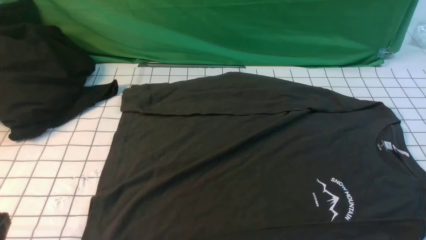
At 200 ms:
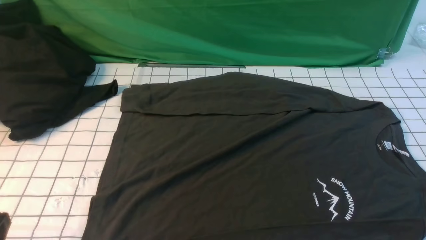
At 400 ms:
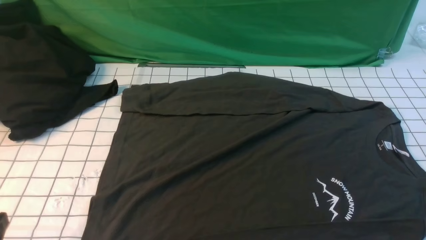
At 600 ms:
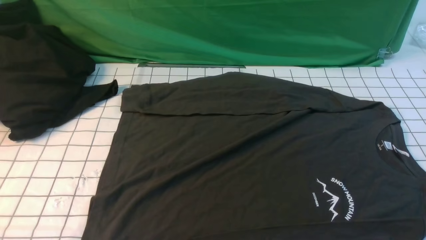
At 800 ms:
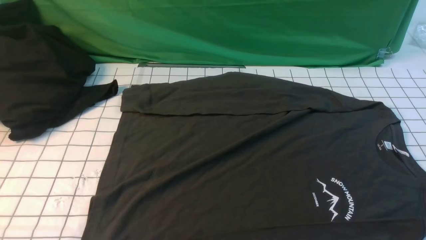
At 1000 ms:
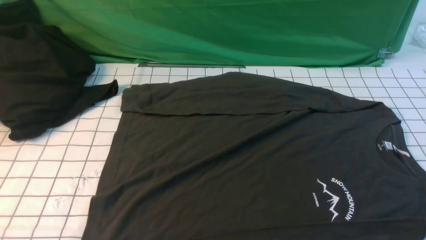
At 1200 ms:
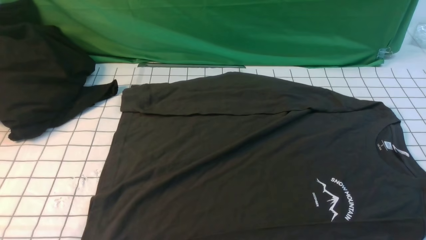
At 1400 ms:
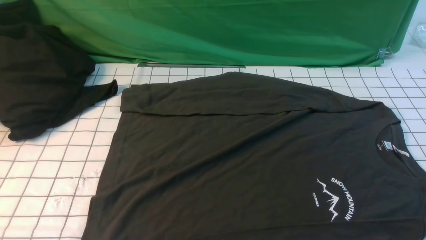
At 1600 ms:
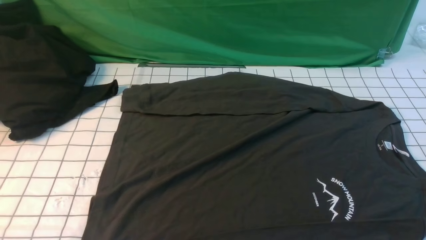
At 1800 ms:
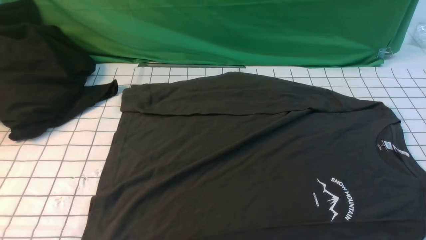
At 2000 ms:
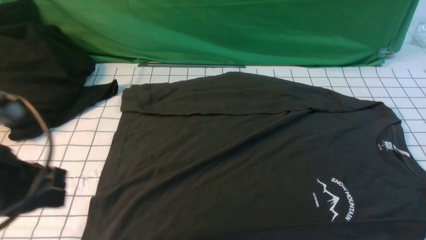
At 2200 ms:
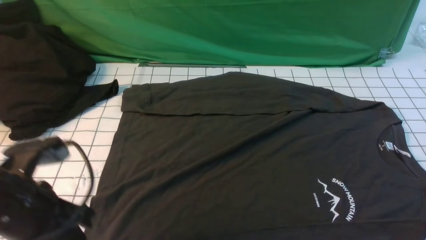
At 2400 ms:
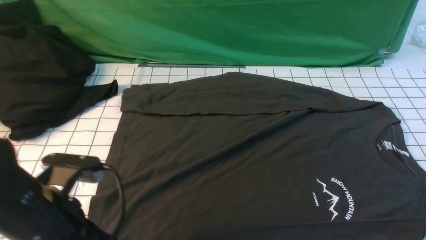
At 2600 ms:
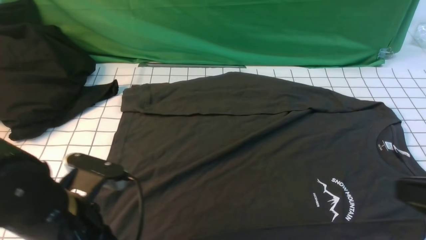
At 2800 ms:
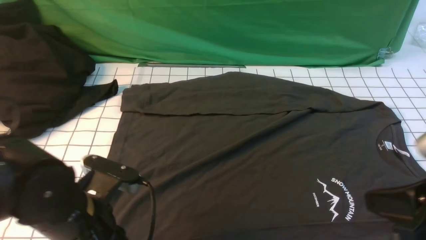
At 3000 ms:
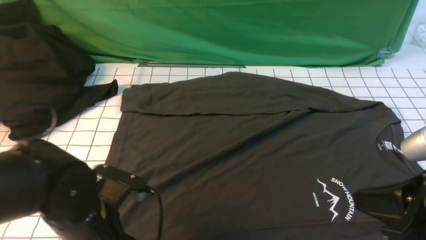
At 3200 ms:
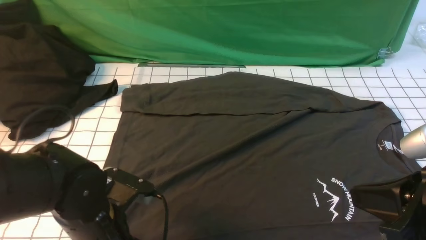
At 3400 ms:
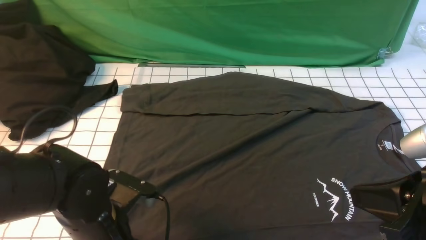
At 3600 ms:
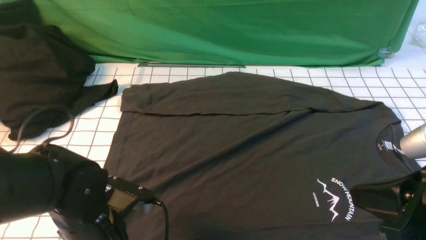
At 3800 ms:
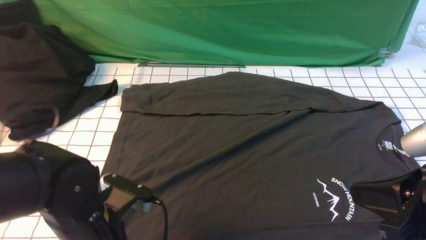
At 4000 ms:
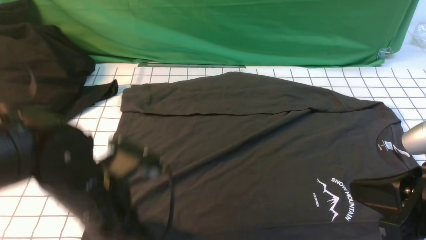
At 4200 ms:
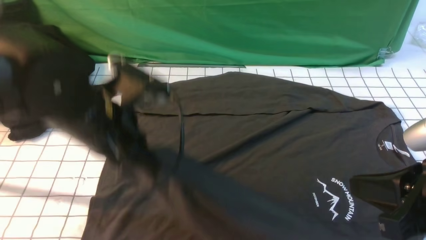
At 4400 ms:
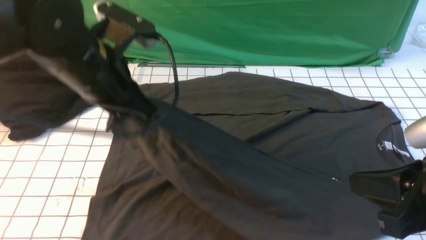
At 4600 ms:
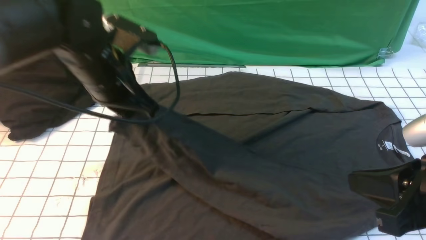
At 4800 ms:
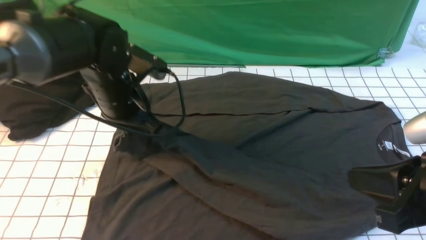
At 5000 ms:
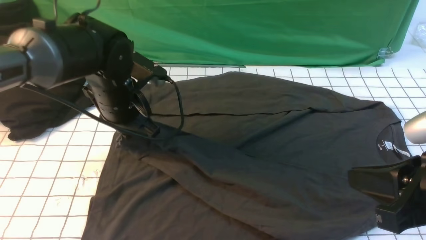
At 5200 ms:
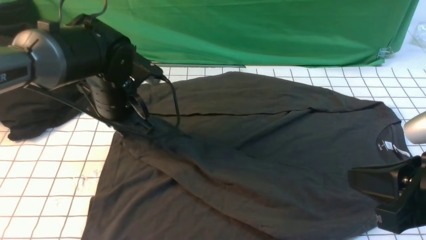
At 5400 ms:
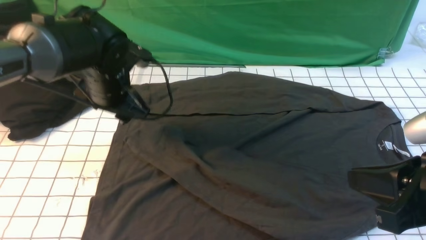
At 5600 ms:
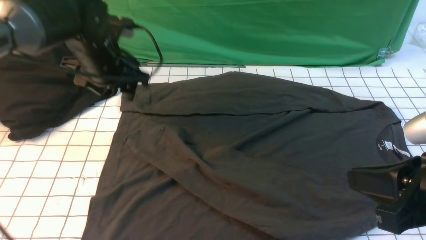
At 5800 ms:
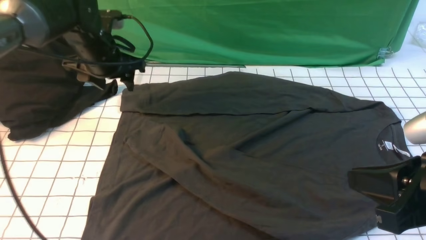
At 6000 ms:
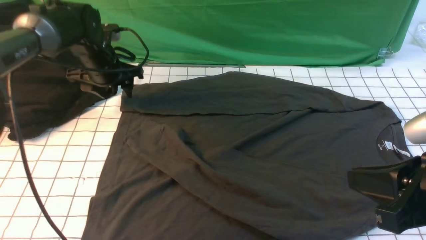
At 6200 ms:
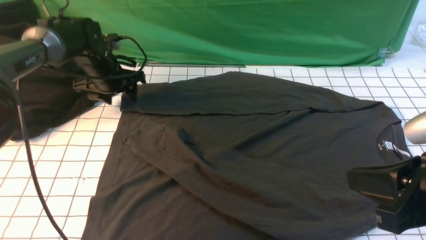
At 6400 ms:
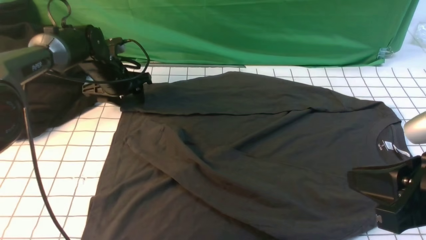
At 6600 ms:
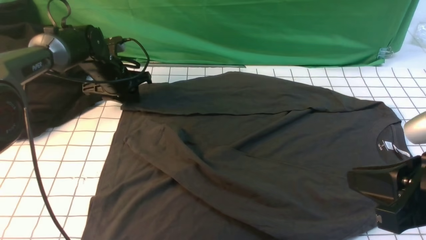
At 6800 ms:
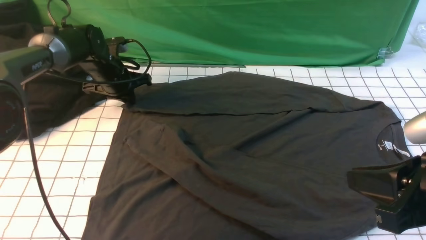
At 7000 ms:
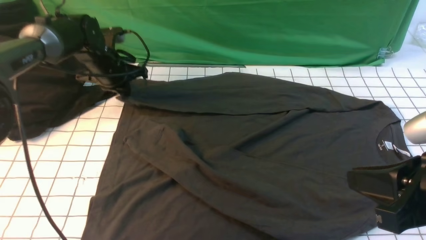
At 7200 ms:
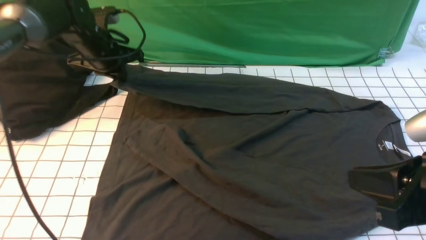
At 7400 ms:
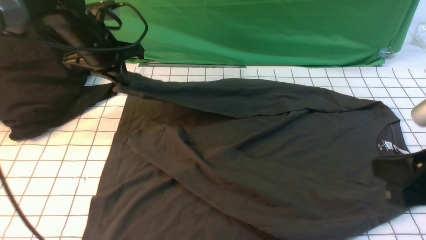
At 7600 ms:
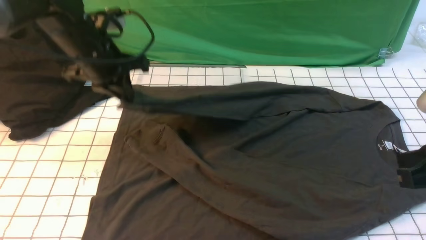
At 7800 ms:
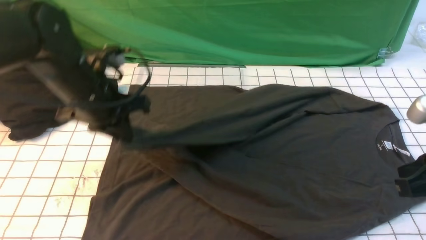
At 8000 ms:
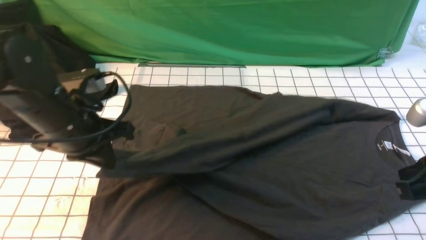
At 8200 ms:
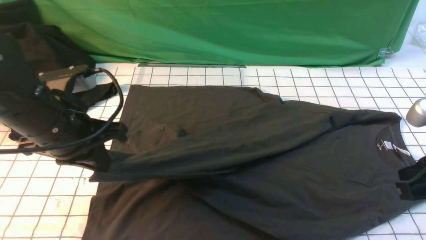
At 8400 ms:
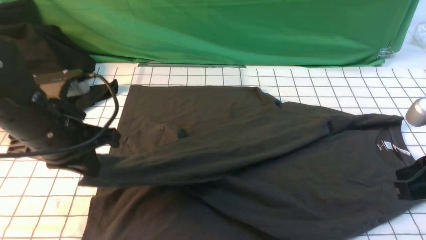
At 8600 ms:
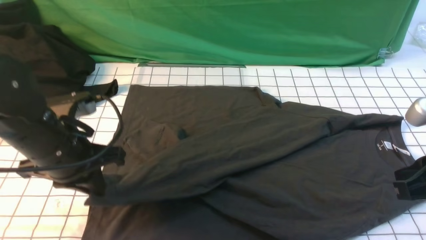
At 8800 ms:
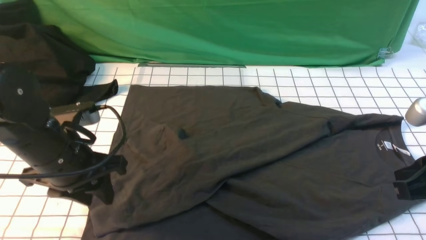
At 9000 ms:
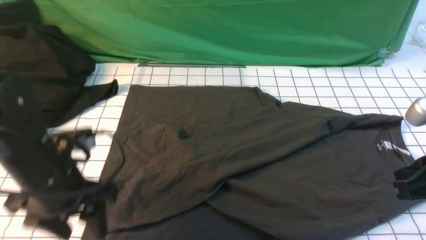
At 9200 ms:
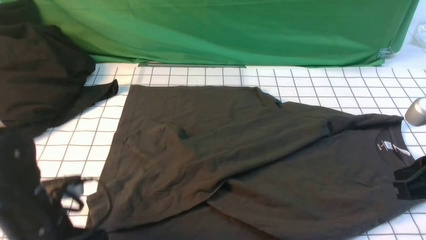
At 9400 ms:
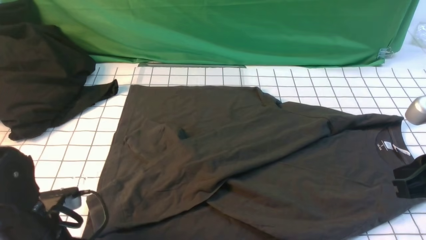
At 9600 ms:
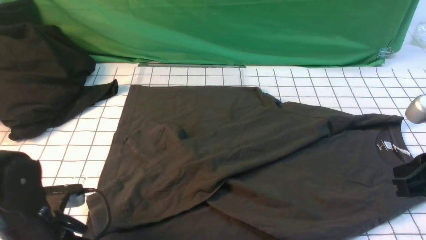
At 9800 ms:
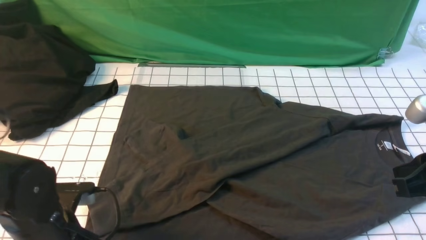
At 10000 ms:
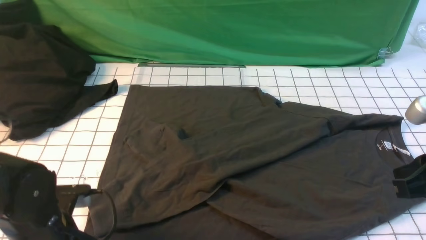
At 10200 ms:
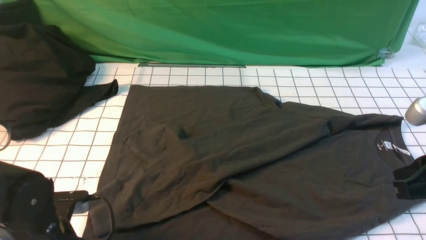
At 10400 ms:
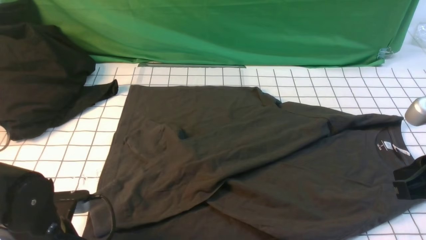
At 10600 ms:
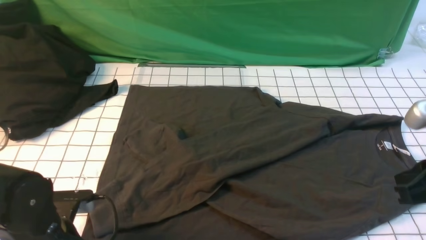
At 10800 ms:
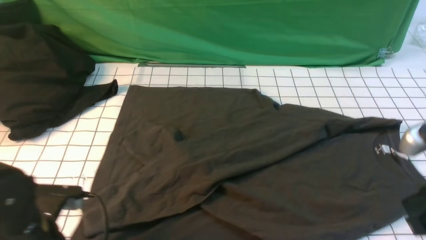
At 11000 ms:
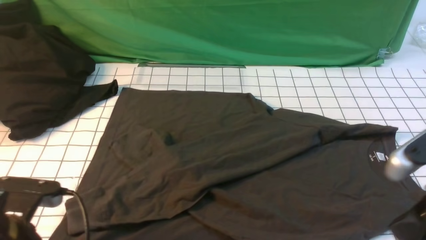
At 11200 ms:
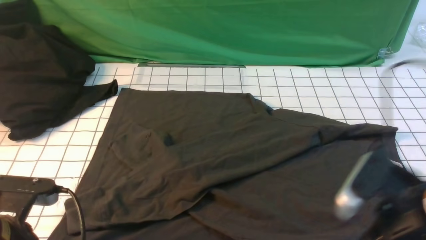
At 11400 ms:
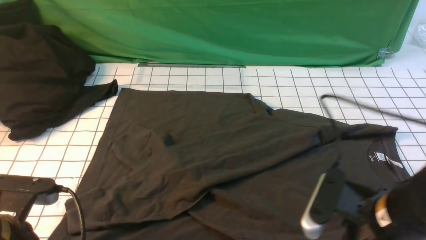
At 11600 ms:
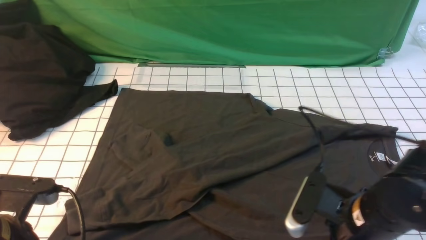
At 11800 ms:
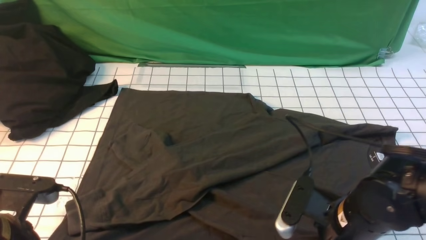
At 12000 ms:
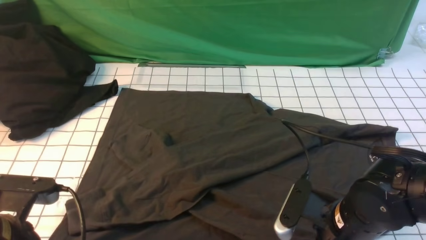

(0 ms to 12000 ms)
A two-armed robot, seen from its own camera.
Step, 0 ms - 3400 ms: use the left arm to clamp the cuff closest to it.
Step, 3600 ms - 5200 ms: use the left arm to drag and place the cuff at the centered position on the left edge of the fabric.
Step, 5400 ms - 6600 ms: use the left arm to clamp the cuff farthest from it.
Step, 6800 ms - 8600 ms: use the left arm to drag and drop the cuff onto the cuff closest to the left arm.
Step, 9000 ms - 11800 ms: use both arms simultaneously to clamp the lower edge of the clothing fabric.
1600 ms - 3000 ms: The right gripper goes about 15 cm to the left, upward and forward, and closes its fingers. The left gripper goes approximately 25 cm downward, forward and to the right, and opens up.
3000 ms - 4400 ms: The left gripper goes roughly 15 cm upward and forward, and closes.
4400 ms - 6000 ms: The left gripper goes roughly 25 cm forward, downward and to the left, and opens its fingers.
6000 ms - 7600 ms: The left gripper shifts approximately 10 cm backward and upward, and closes up.
7600 ms - 9000 ms: The left gripper heads backward, covering some 15 cm, and opens up.
9000 ms - 10400 ms: The left gripper shifts approximately 5 cm downward, and closes up.
10400 ms - 12000 ms: The left gripper is displaced upward by about 5 cm, and closes, while the right gripper moves downward and to the left, some 15 cm, and opens and closes again.

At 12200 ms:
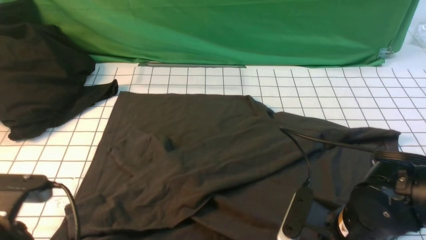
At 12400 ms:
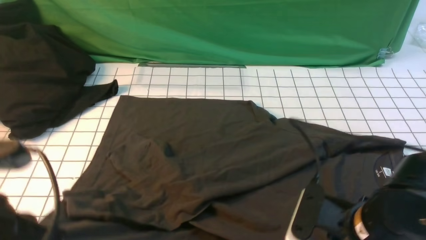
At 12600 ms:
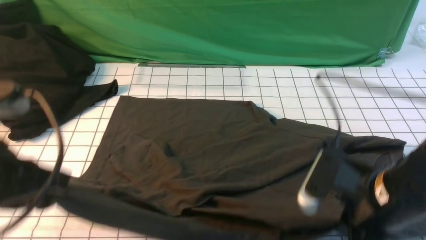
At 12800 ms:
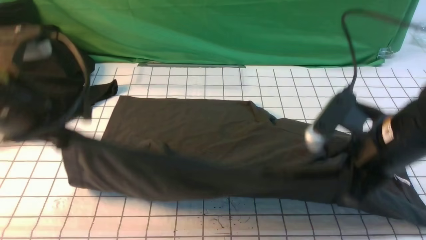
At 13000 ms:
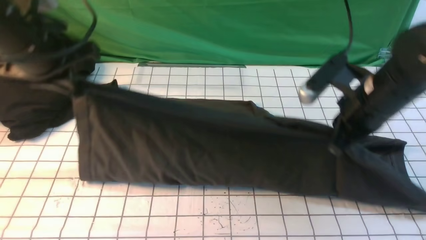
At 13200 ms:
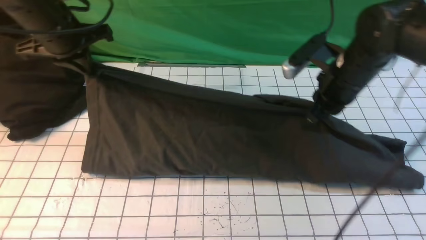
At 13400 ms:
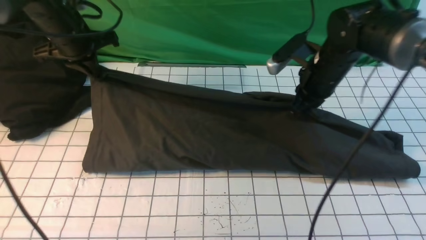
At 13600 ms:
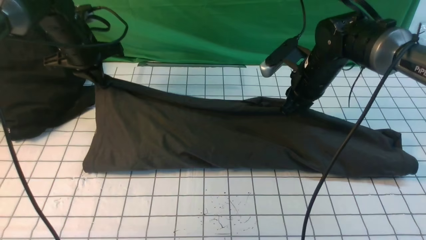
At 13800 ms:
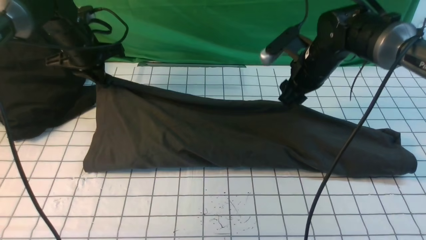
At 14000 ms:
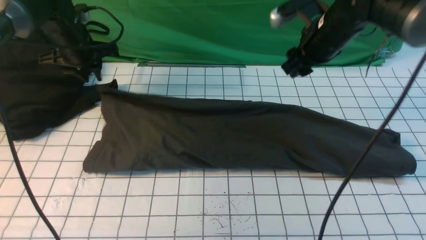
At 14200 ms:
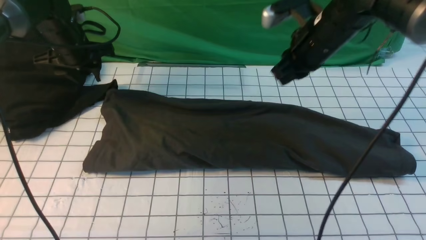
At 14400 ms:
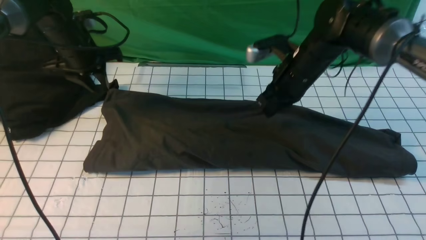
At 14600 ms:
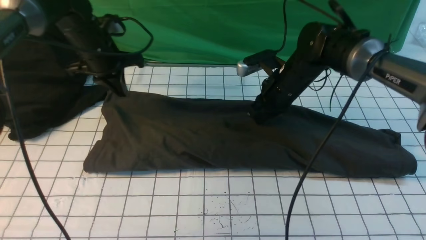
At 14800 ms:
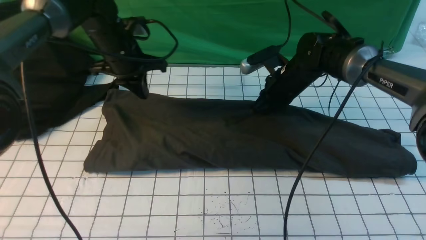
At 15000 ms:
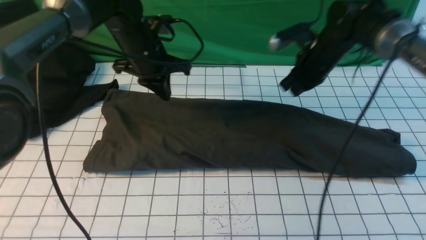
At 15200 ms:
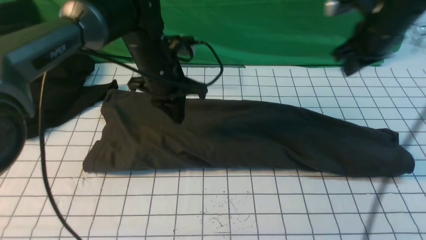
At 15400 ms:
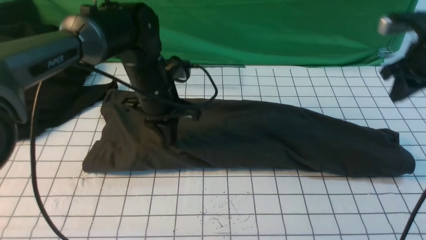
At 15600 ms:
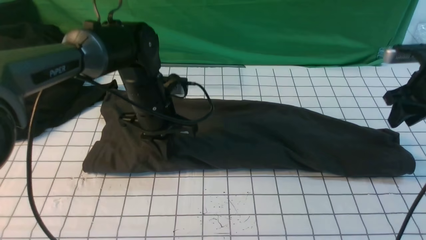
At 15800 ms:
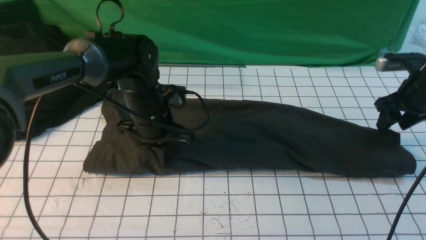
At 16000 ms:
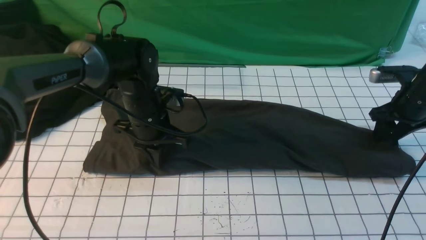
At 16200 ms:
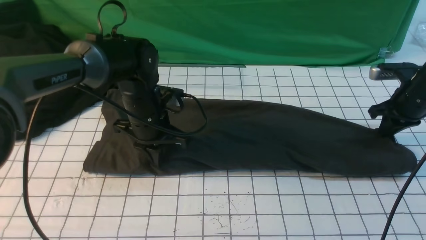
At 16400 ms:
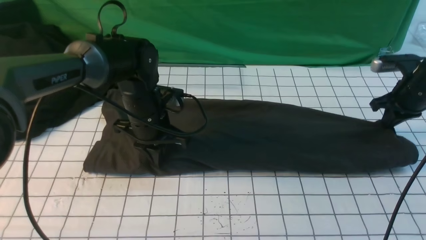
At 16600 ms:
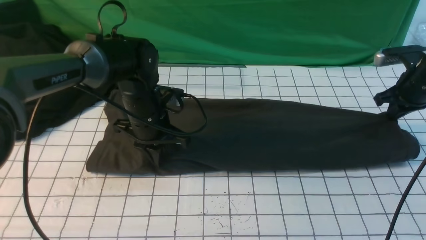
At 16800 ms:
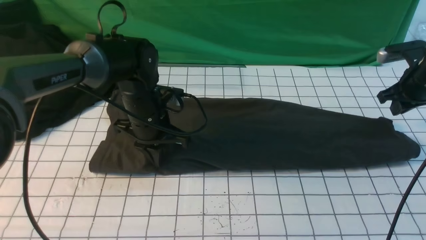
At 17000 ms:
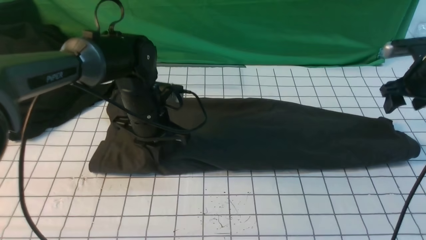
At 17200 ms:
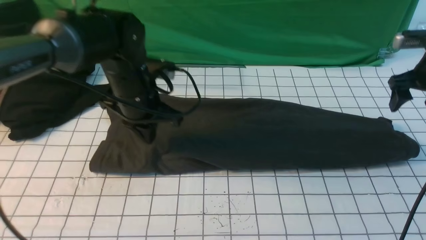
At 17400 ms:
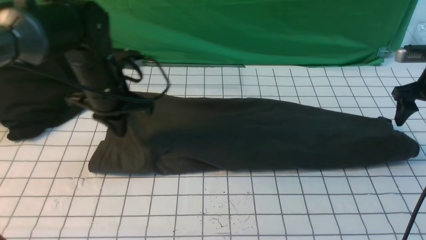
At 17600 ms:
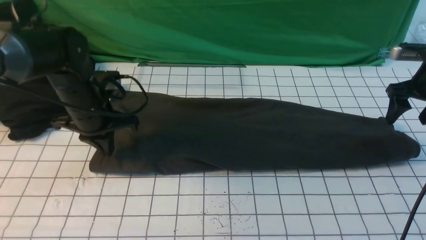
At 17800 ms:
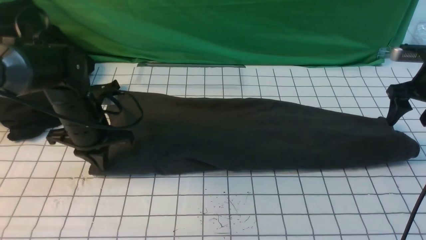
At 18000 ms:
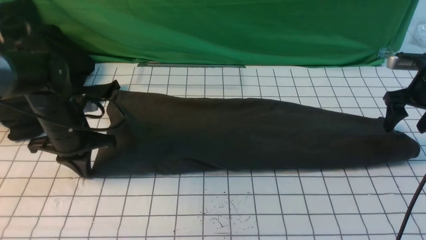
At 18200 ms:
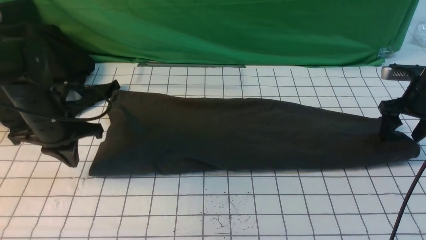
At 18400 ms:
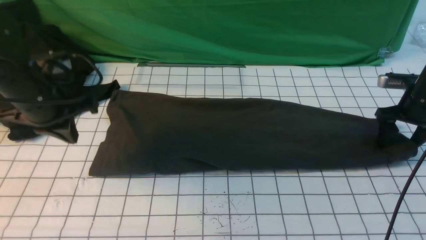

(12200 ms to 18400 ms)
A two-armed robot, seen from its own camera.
Step, 12200 ms - 14200 ms: use both arms to drag the lower edge of the fabric forward and fold it over the upper edge.
12200 ms - 13800 ms: The grippers both shift forward by approximately 30 cm. The right gripper opens its fingers.
13800 ms - 15400 ms: The right gripper travels to the right by about 15 cm. Meanwhile the left gripper heads to the right and backward, covering about 20 cm.
15400 ms - 16800 ms: The right gripper heads downward, covering approximately 5 cm.
16800 ms - 18400 ms: The right gripper opens its fingers. Meanwhile the left gripper goes some 15 cm to the left and upward.
